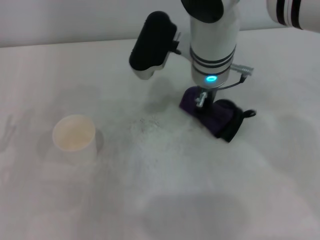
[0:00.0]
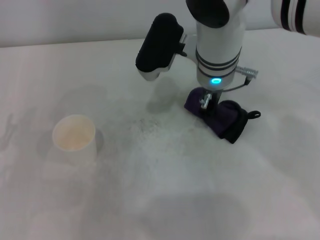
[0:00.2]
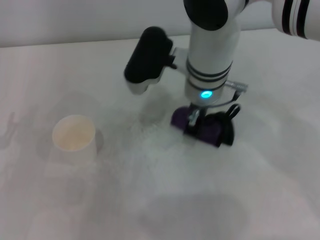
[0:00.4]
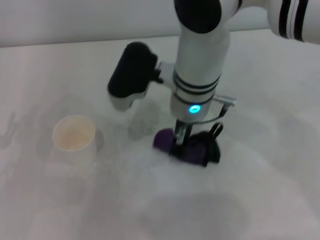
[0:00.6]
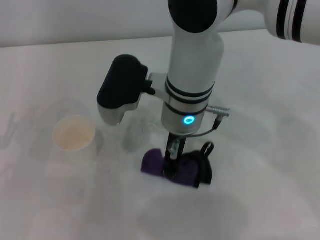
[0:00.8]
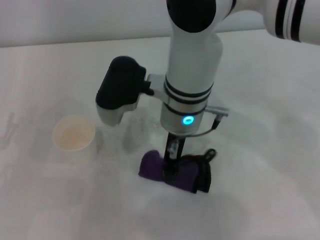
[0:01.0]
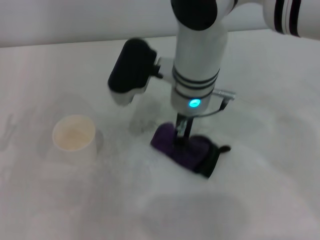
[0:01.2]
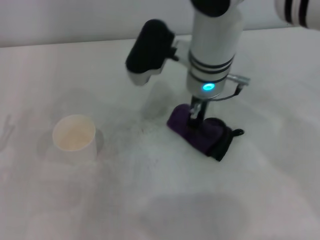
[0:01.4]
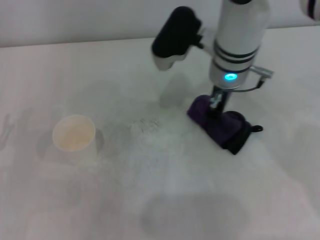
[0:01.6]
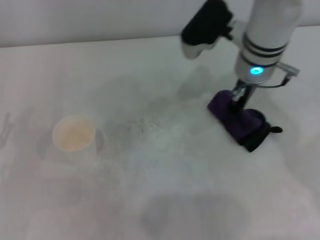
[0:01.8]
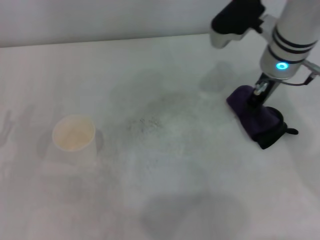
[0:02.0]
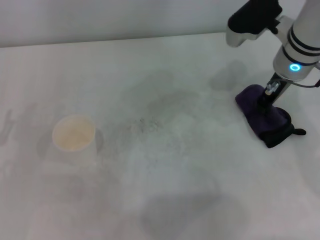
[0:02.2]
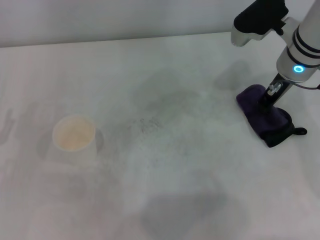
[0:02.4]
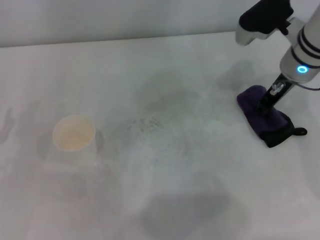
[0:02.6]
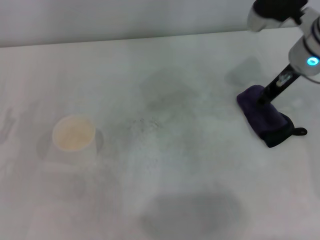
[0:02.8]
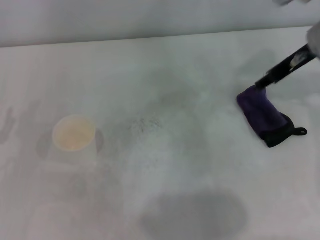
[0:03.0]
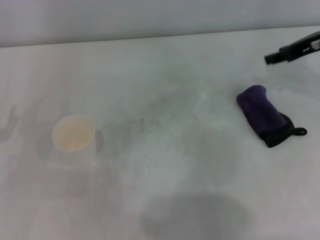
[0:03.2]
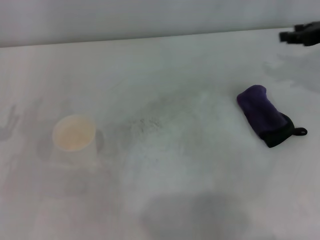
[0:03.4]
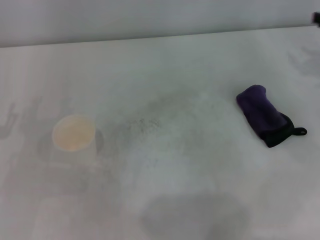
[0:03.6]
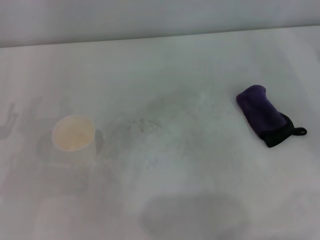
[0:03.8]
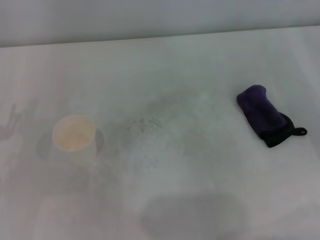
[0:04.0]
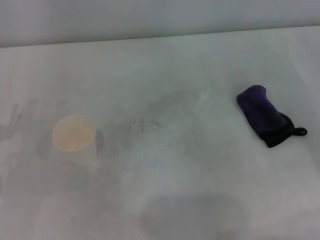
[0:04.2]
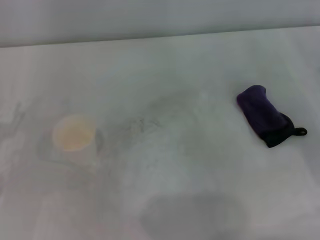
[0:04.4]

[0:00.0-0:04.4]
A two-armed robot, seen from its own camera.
Step, 0:02.0 to 0:02.6: Place the rag on the table with the right gripper.
0:01.4 to 0:03.0: The right gripper travels to the right by roughly 20 cm, and opens up.
0:03.0 to 0:04.4: The right gripper moves to the right, backward and downward, some 20 cm.
